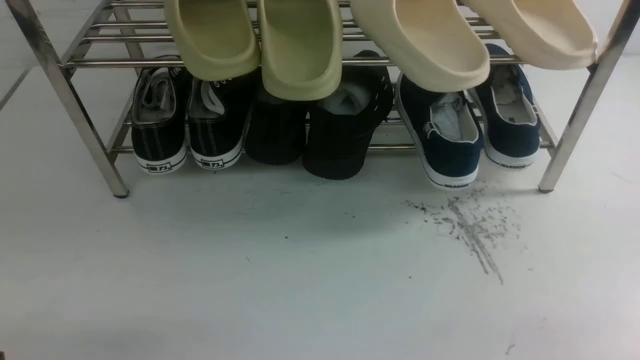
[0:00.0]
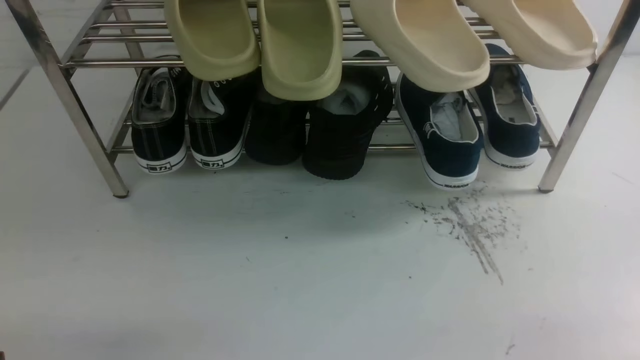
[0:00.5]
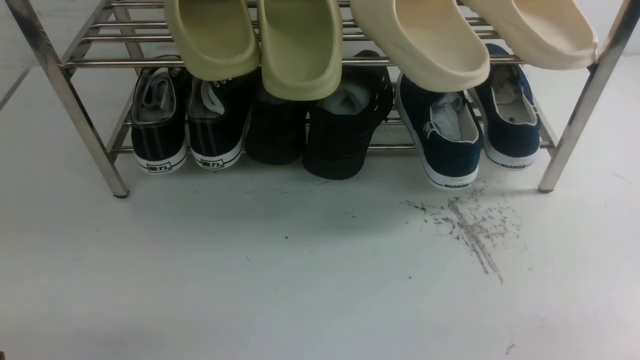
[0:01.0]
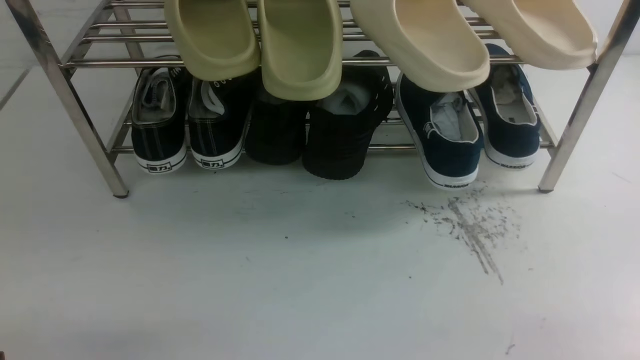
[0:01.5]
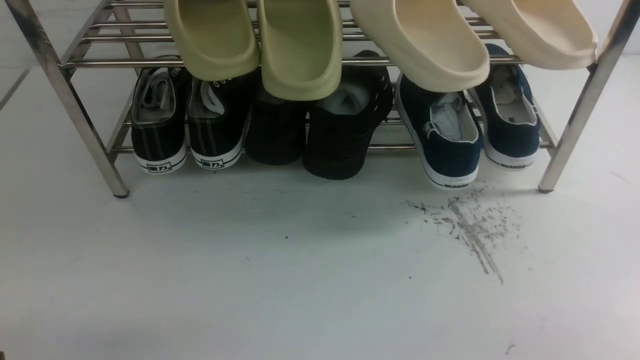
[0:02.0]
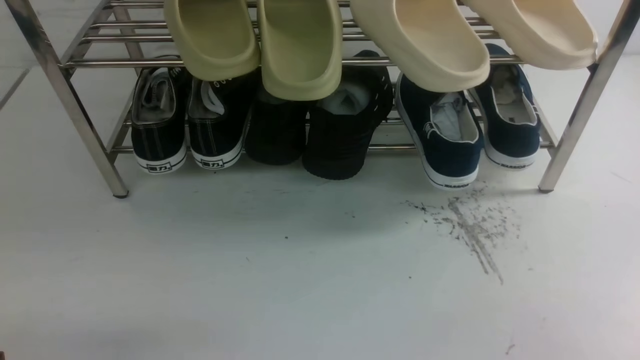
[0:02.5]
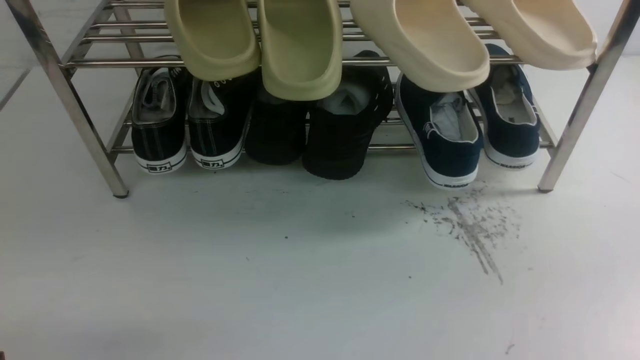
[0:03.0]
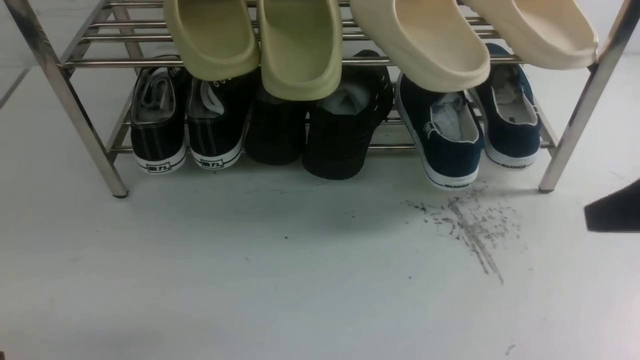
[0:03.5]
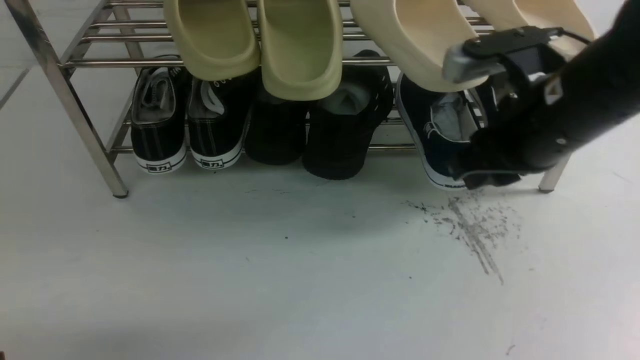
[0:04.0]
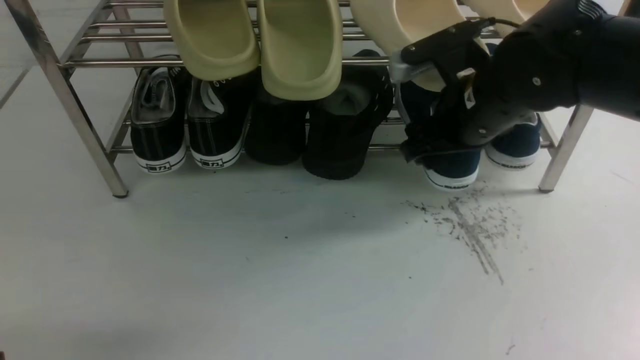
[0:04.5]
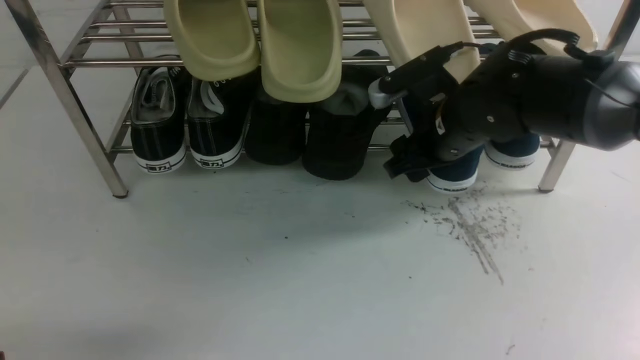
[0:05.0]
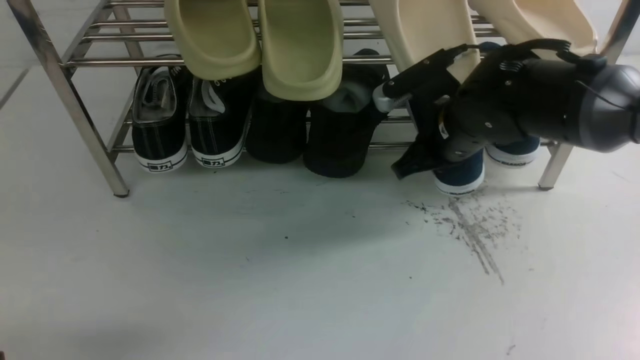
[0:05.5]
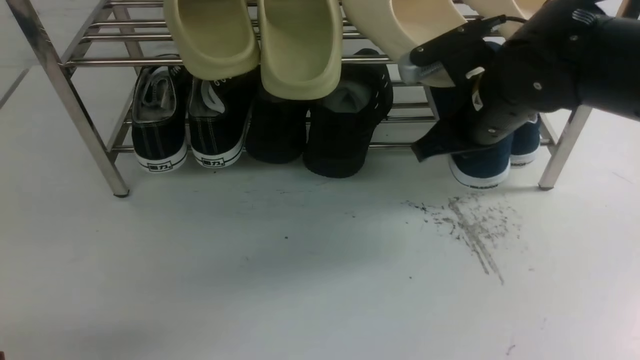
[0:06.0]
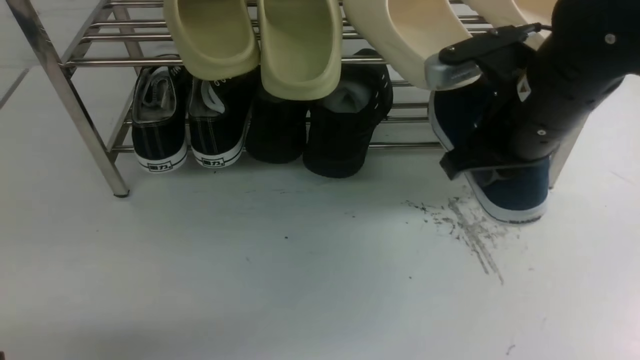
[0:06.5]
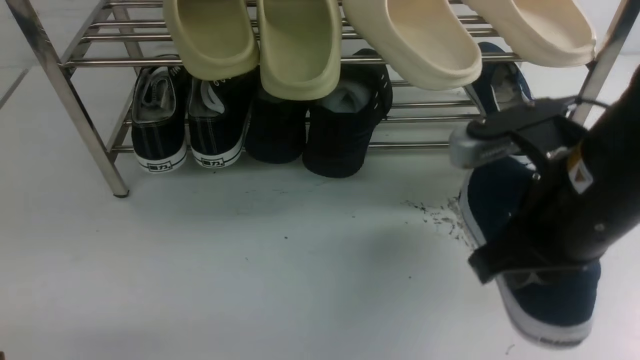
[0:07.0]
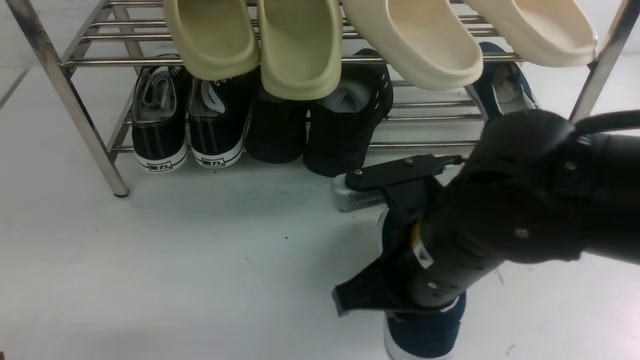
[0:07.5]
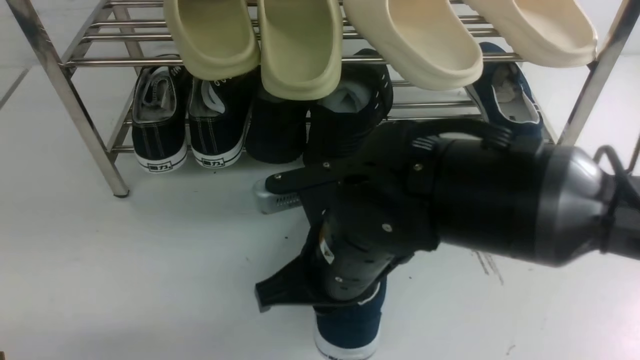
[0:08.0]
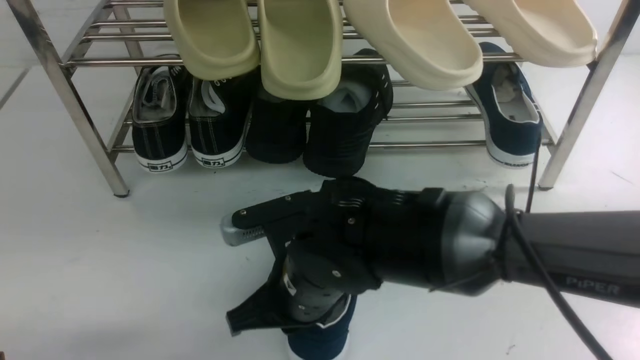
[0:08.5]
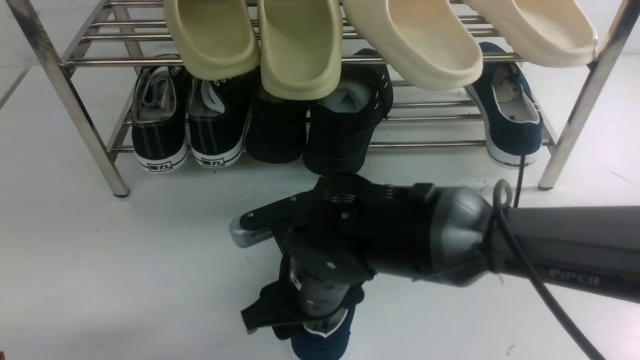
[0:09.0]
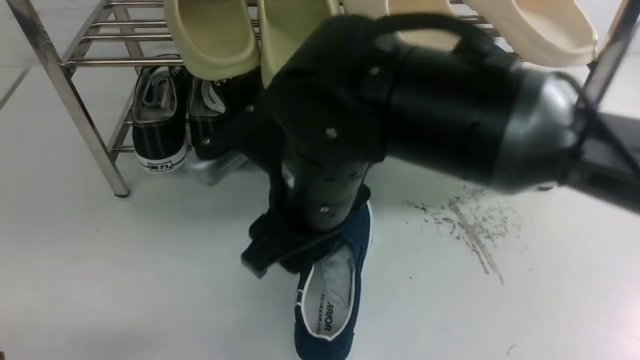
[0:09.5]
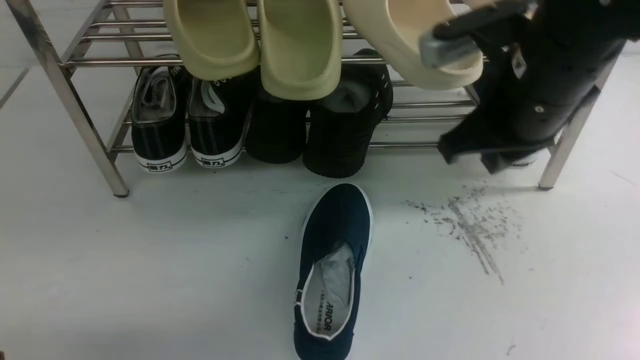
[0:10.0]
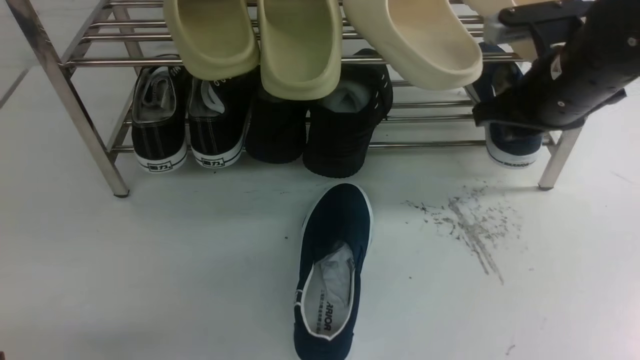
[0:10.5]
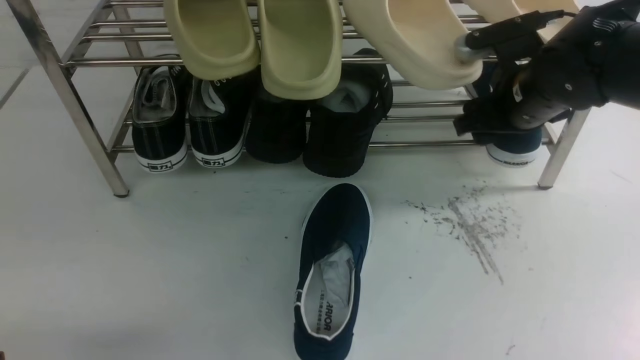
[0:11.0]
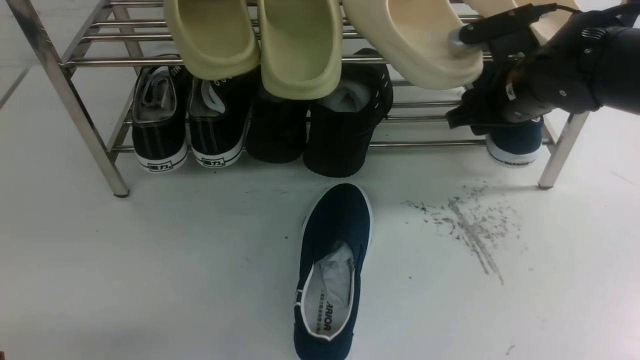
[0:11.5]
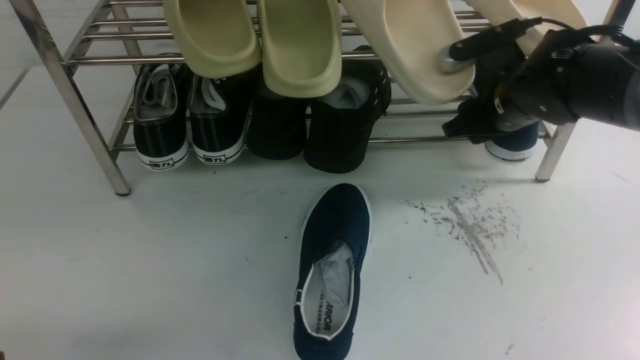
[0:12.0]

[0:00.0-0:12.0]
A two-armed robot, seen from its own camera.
Step, 0:00.0 to 0:06.0: use the right arm to clamp a shoe on the right side of the shoe rack.
Step, 0:06.5 to 0:09.0: use the right arm to take out the clamped shoe from the shoe rack and put it down.
0:02.0 to 0:04.0: The right gripper goes approximately 30 cm forward, upward and to the left.
0:04.0 to 0:06.0: The right gripper shifts some 10 cm forward, and opens and closes again.
0:06.0 to 0:08.0: The right gripper moves backward and to the left, approximately 20 cm.
0:08.0 to 0:10.0: The right gripper shifts roughly 15 cm to the right, upward and forward, and opens and closes again.
0:10.0 to 0:12.0: The right gripper travels forward, downward and to the right by approximately 20 cm, and opens its fingers.

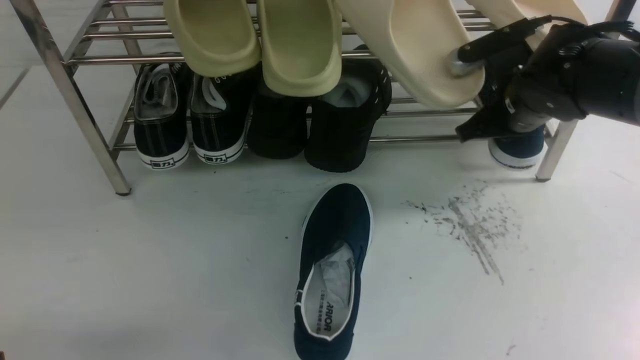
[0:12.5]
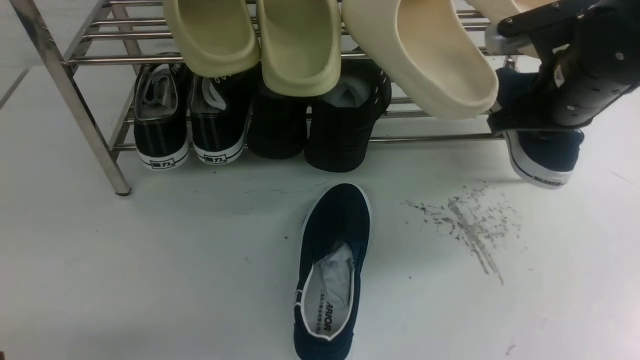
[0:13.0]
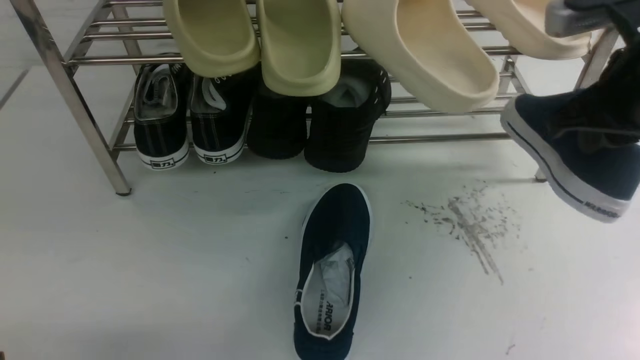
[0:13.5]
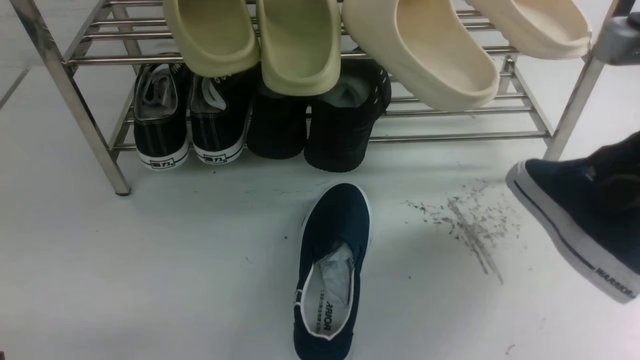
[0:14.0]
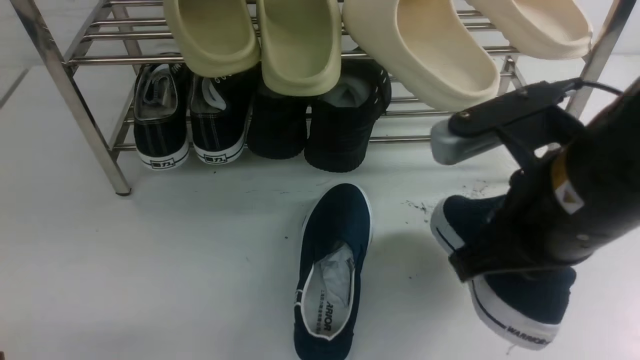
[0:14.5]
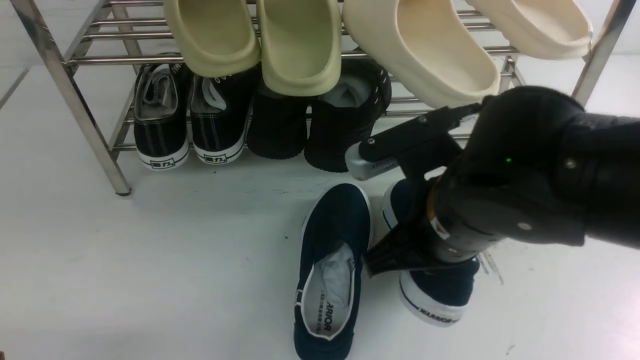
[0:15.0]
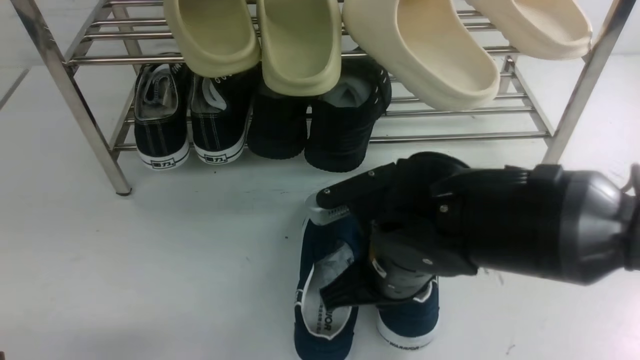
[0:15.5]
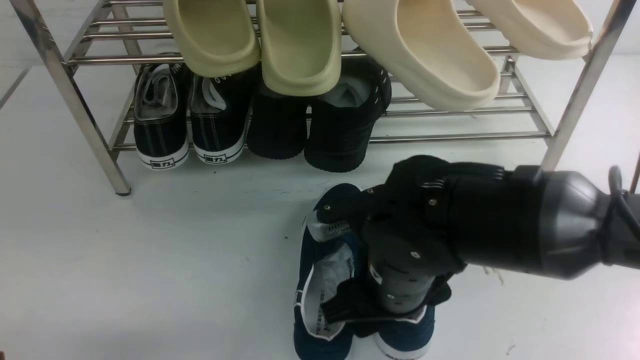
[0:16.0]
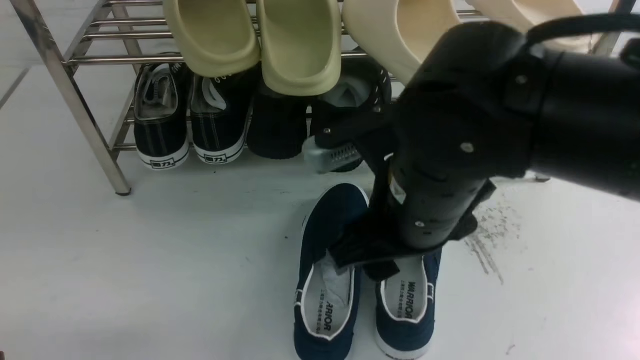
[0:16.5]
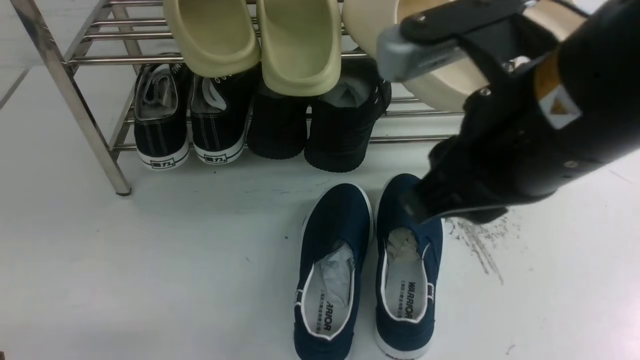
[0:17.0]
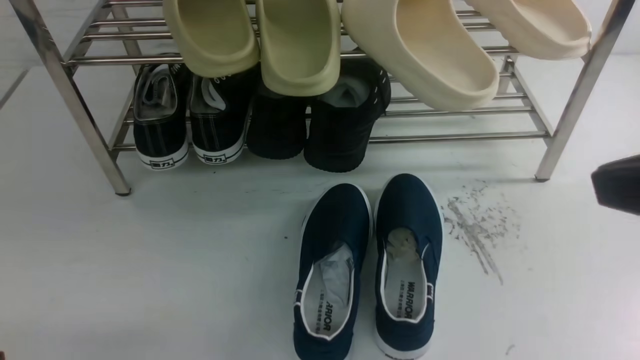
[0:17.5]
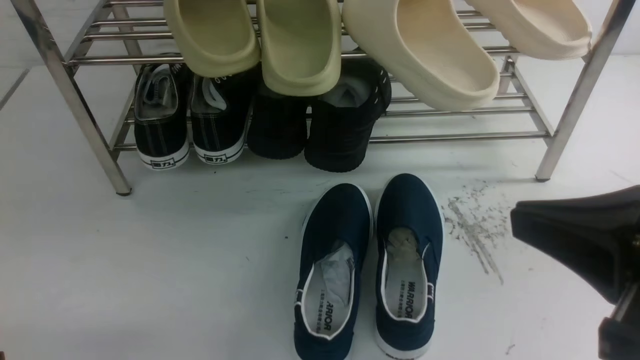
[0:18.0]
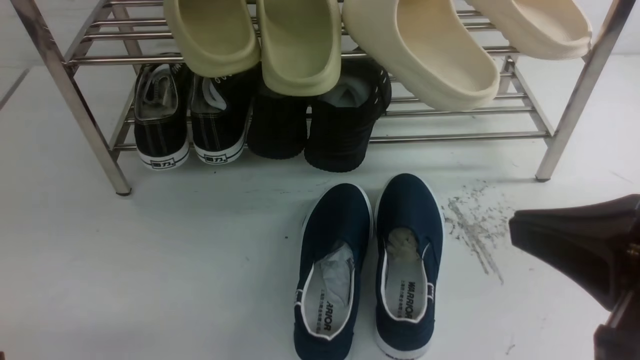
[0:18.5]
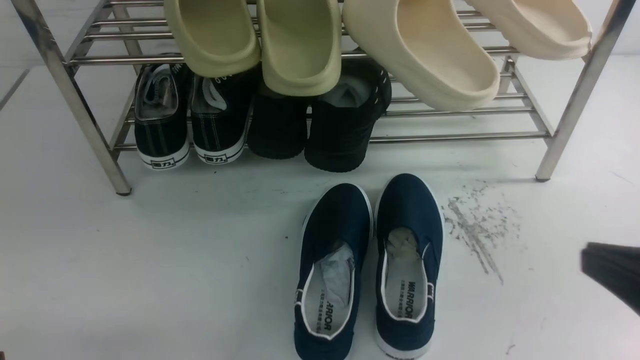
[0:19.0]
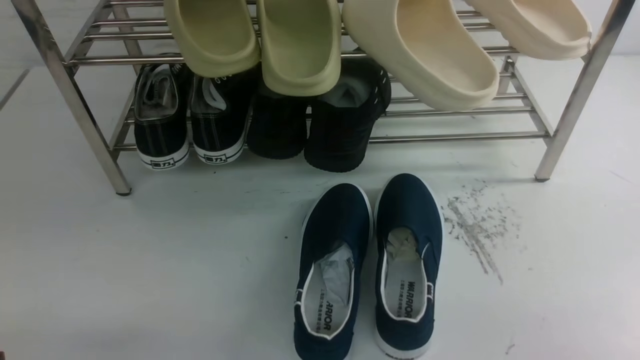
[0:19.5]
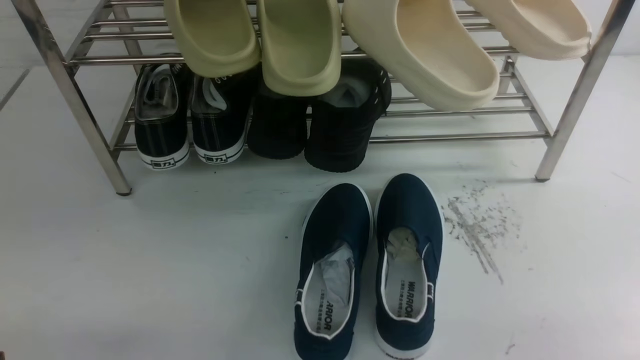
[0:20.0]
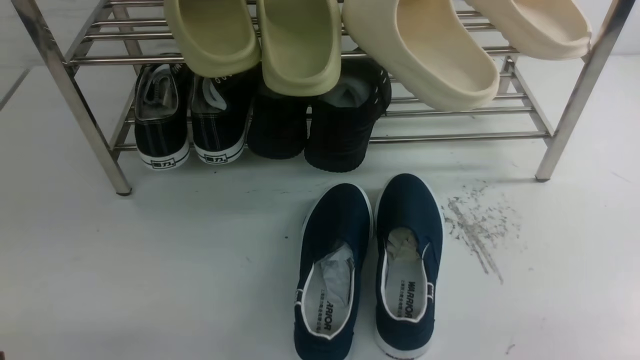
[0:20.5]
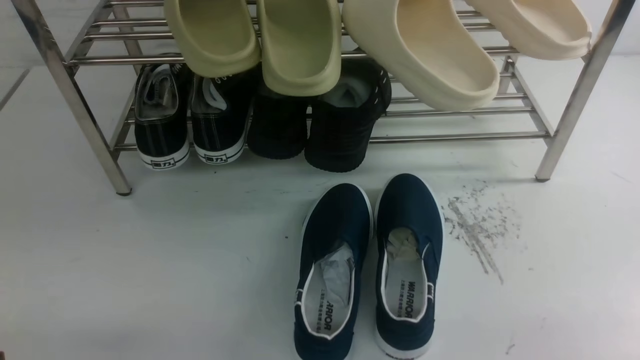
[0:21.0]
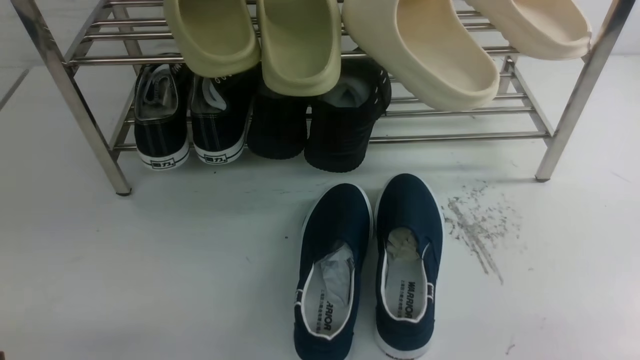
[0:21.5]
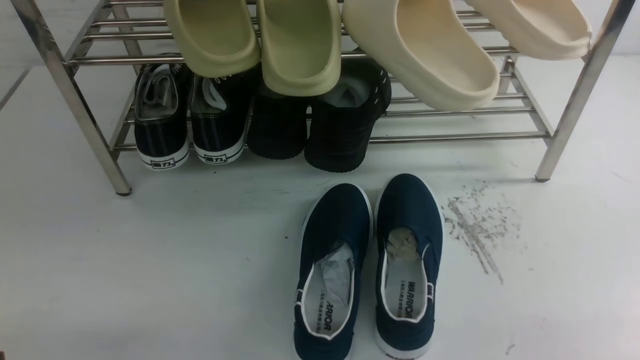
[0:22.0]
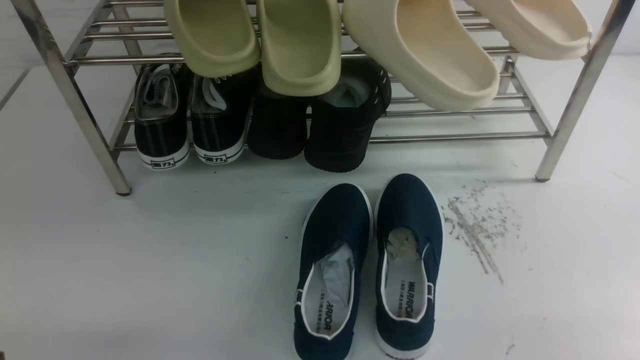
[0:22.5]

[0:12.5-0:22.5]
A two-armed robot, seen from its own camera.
Step, 0:13.0 to 0:16.0: use the right arm to take out the clamped shoe from the shoe rack and put it down.
0:12.5 to 0:14.5: The right gripper goes some 25 cm backward and upward.
0:14.5 to 0:16.5: The right gripper travels to the left and downward by about 10 cm, and opens.
0:16.5 to 0:18.5: The right gripper travels to the right and backward by roughly 20 cm, and closes.
0:18.5 to 0:20.5: The right gripper goes about 20 cm downward and to the right.
0:20.5 to 0:22.5: Both grippers stay about where they are.
